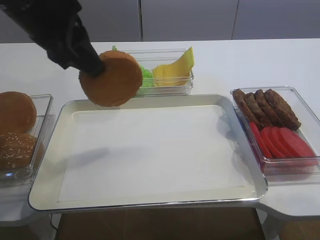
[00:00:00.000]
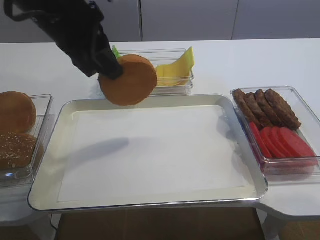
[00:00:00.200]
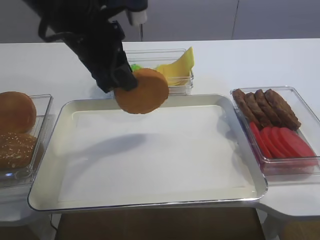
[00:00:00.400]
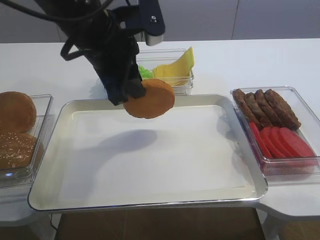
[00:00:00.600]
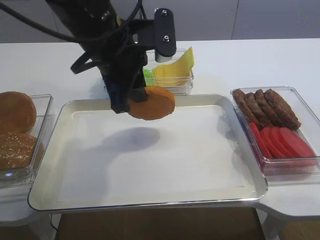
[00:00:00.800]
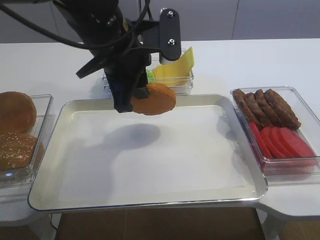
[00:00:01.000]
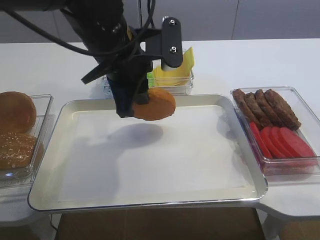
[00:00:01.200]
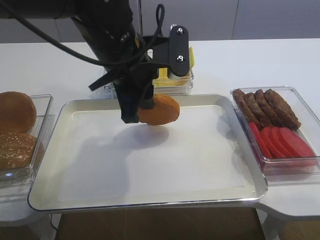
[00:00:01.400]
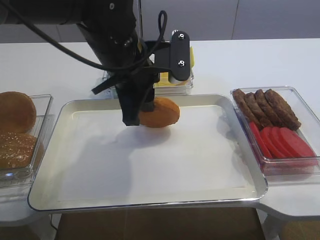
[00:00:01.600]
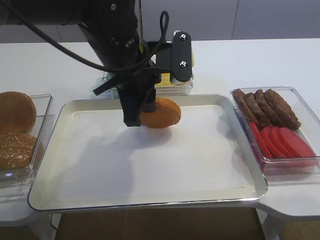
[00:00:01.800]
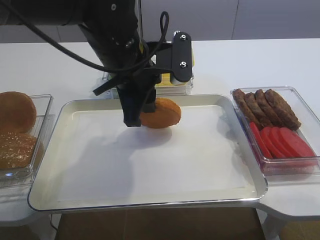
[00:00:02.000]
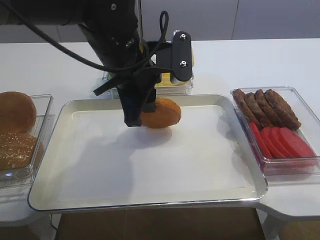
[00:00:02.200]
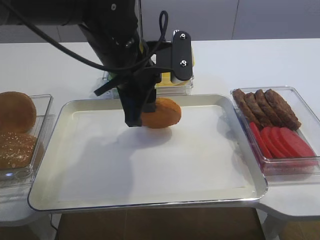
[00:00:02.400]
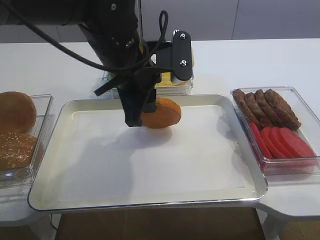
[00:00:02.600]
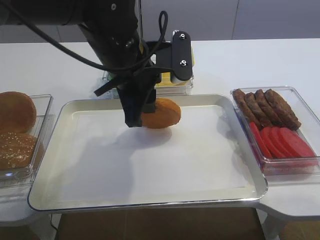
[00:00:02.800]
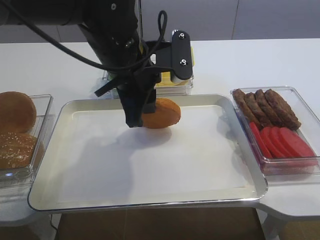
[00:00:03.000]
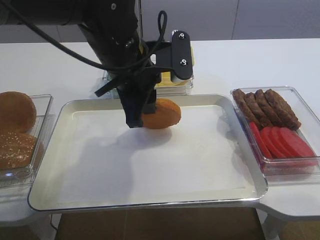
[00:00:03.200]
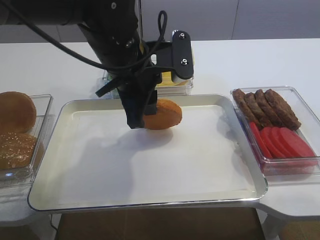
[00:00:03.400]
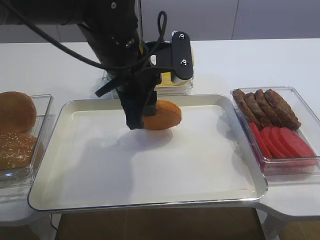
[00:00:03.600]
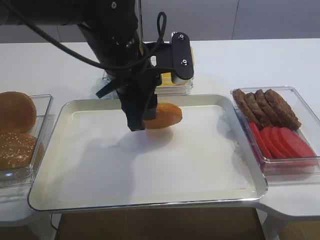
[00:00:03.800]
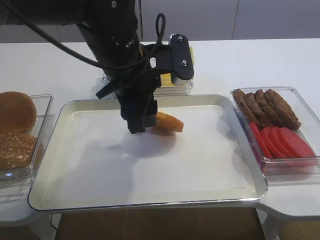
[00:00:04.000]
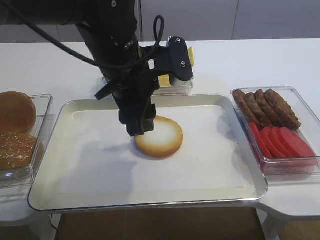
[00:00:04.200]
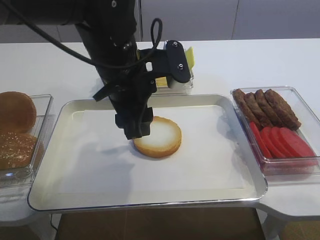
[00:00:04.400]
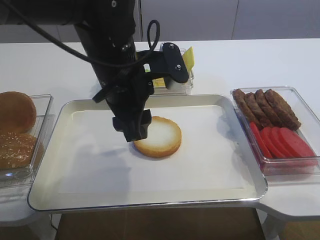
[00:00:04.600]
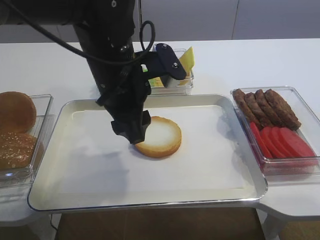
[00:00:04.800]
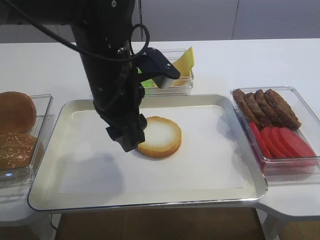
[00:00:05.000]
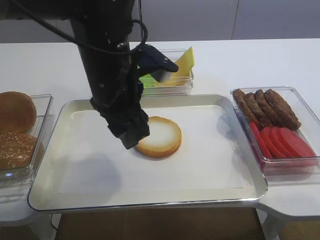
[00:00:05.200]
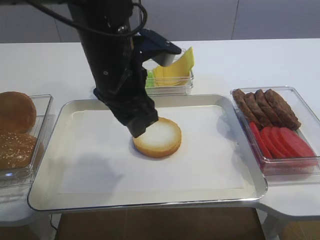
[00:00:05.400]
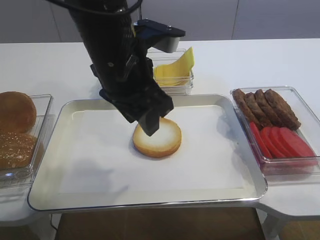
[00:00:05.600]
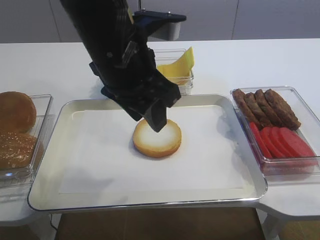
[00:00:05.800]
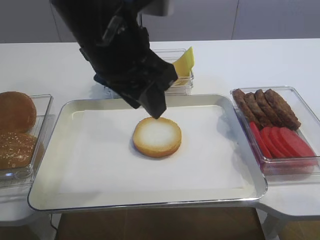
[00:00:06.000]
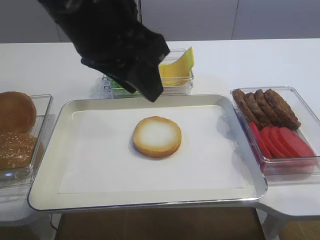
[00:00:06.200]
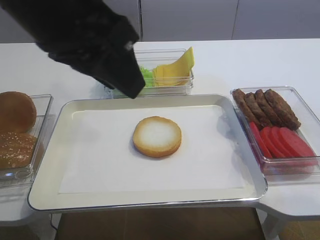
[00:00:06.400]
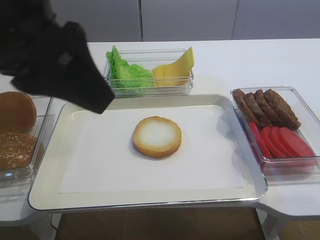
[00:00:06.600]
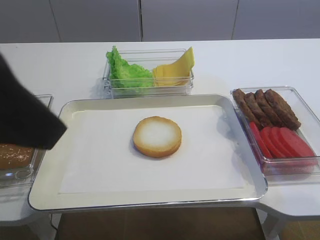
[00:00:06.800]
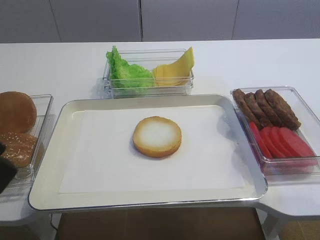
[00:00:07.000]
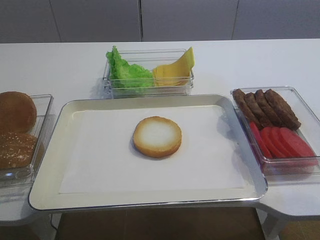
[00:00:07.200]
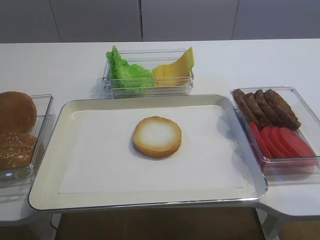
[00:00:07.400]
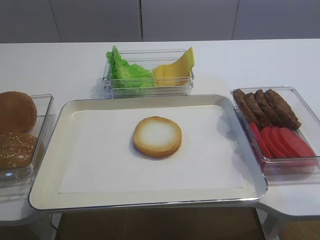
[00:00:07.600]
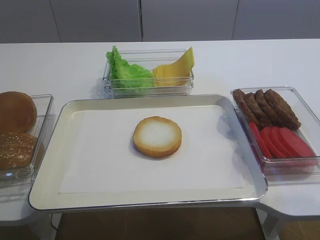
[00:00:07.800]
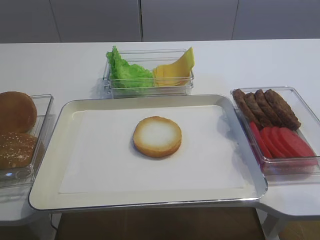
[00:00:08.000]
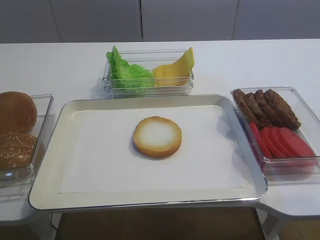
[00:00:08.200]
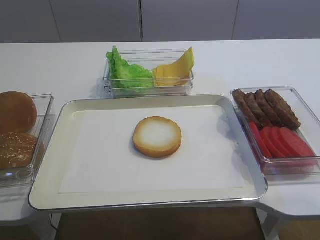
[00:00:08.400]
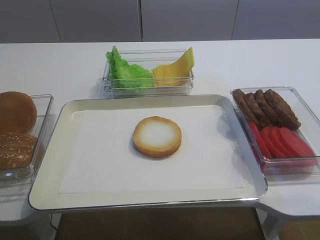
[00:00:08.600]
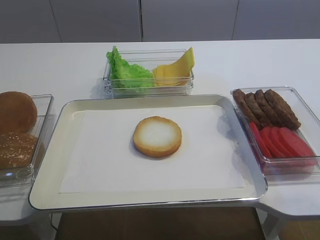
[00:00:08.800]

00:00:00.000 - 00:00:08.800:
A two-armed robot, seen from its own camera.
Step, 00:00:00.000 - 00:00:04.200: Place the bread slice on the tray with the left gripper.
00:00:00.000 - 00:00:01.400: The left gripper travels to the right and downward by approximately 10 cm.
00:00:01.400 - 00:00:03.000: Both grippers stay about where they are.
00:00:03.000 - 00:00:04.400: The left gripper opens.
00:00:04.400 - 00:00:05.800: The left gripper changes place by approximately 5 cm.
00:00:05.800 - 00:00:07.400: The left gripper goes some 30 cm backward and to the left.
